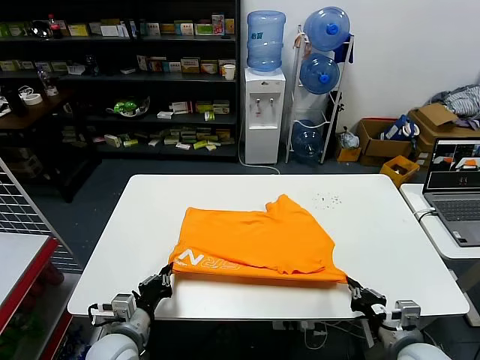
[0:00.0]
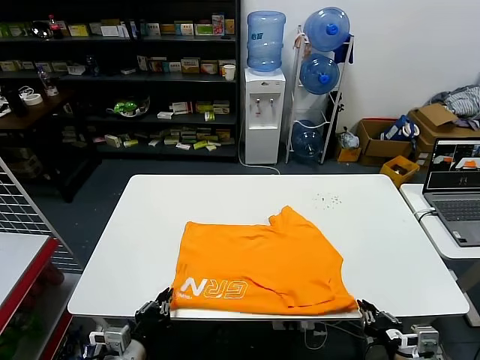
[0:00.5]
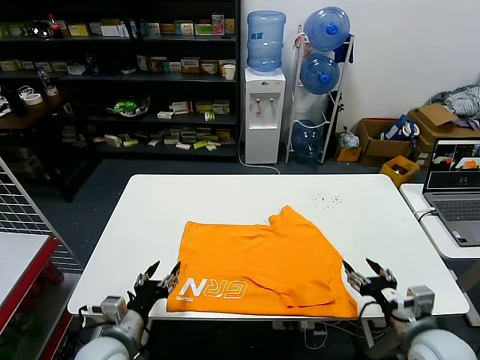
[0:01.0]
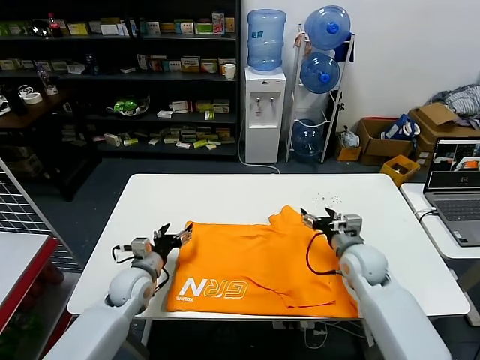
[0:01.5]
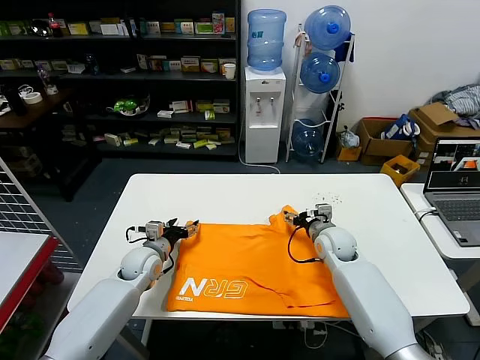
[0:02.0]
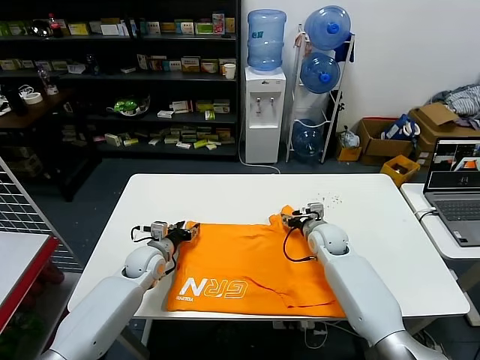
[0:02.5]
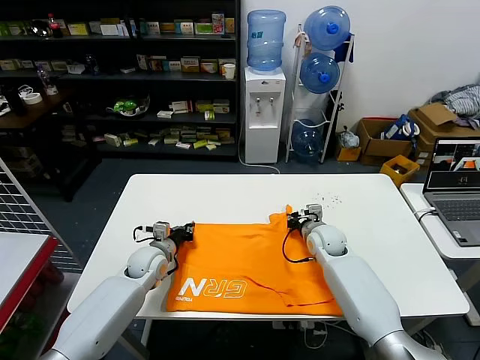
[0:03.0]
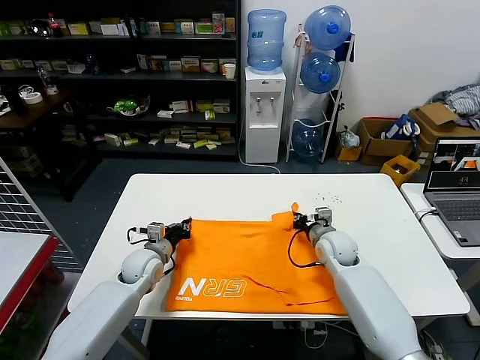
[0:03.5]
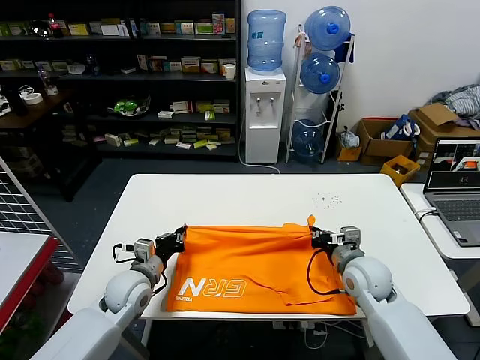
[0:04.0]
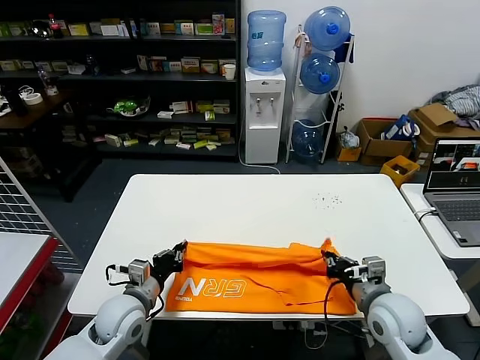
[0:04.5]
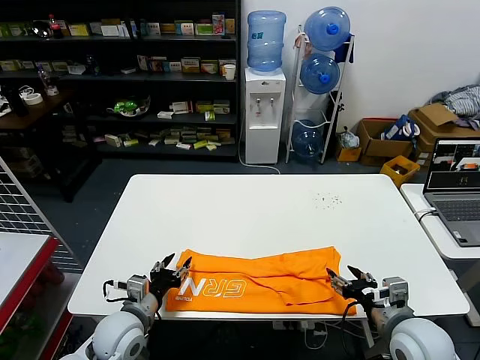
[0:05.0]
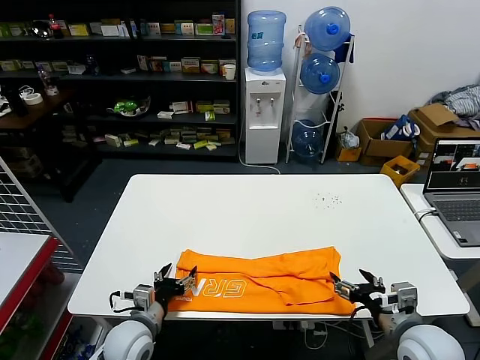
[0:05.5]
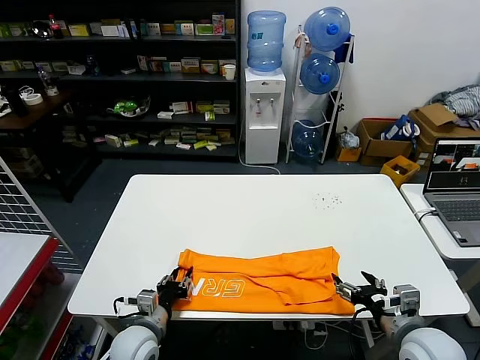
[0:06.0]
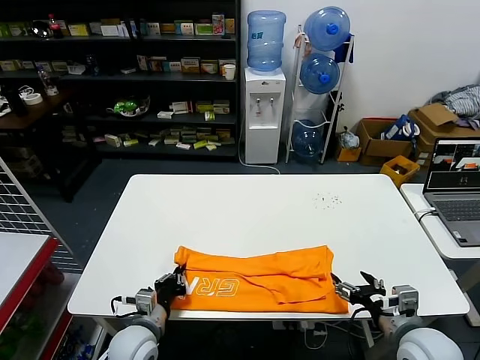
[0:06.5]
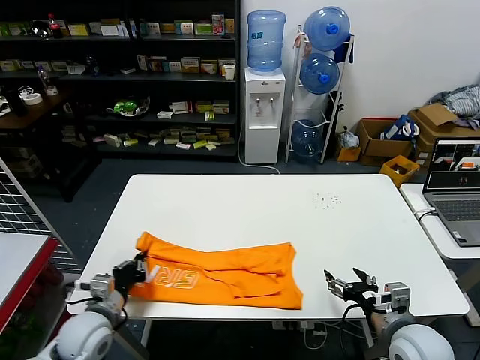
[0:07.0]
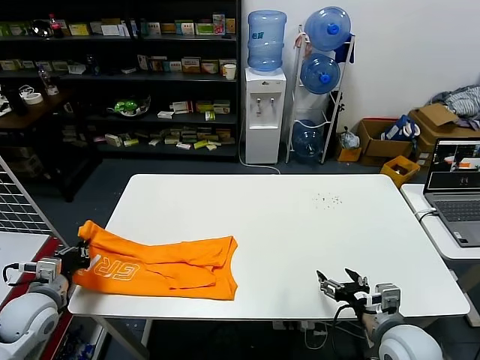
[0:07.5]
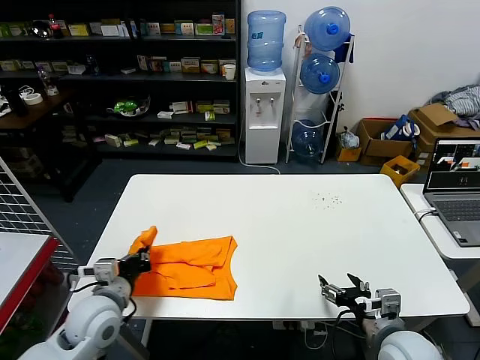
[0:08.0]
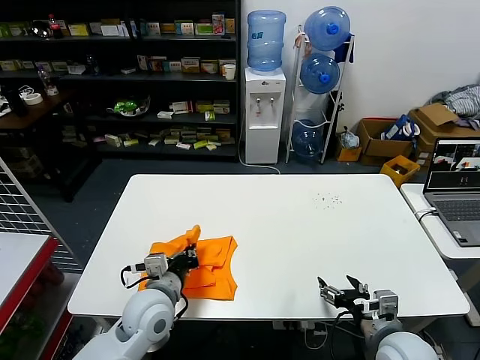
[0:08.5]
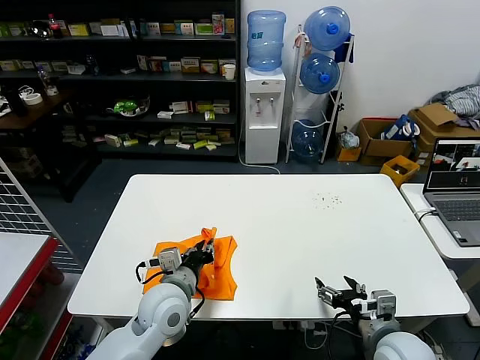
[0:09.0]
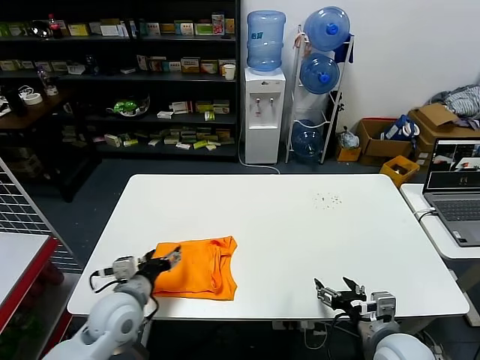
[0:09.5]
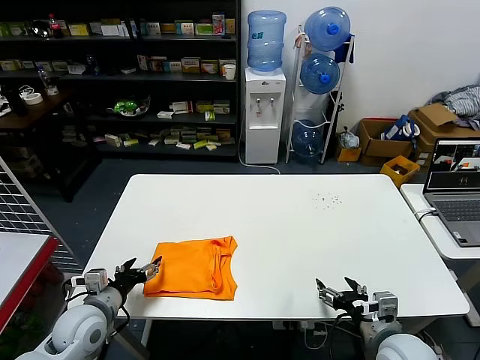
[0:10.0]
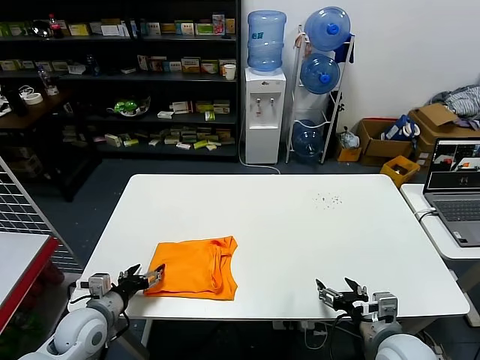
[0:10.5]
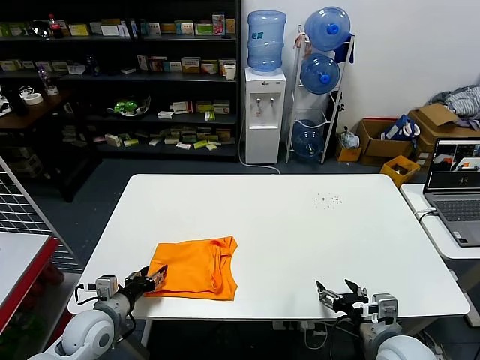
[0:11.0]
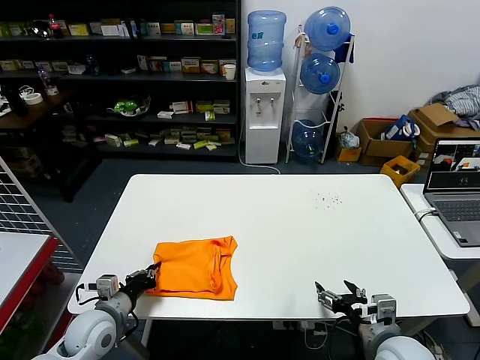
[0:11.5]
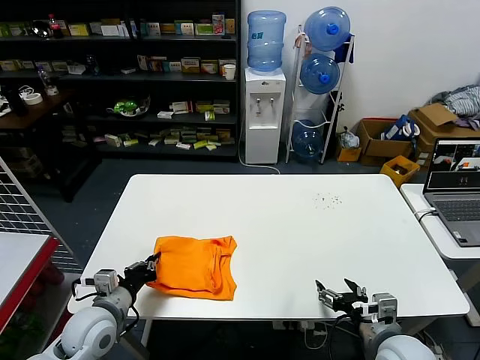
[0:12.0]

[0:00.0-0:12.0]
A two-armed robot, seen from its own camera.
Task of the whole recording: fold and organize the clothes.
Step, 1.0 to 3.0 s: use both grippers simultaneously to clamp the upper edge of the clothing fabric.
Step, 3.5 to 4.5 s: use both grippers to drag the upper edge of the fabric backward and fold it over the lower edge.
Step, 5.0 to 6.0 s: use the left gripper to clamp the left edge of the fabric.
Step, 6.5 to 9.0 s: use the left gripper to drag the left edge of the fabric to the left and folds it over the right edge.
0.0 to 2.0 s: The grippers both shift forward by roughly 25 cm. The right gripper opens. Meanwhile the left gripper opens its fingers.
2.0 to 4.0 s: Both grippers move backward, approximately 10 cm. The right gripper closes up. The left gripper closes.
4.0 to 6.0 s: The left gripper is displaced backward and downward by about 10 cm, and opens up. Meanwhile the right gripper heads backward, covering roughly 15 cm, and opens up.
6.0 to 8.0 s: The left gripper is displaced upward by some 10 cm, reaches approximately 20 cm to the left, then returns, and closes up.
8.0 to 10.0 s: The left gripper reaches roughly 15 cm to the right, then returns, and opens up.
10.0 to 12.0 s: The left gripper closes.

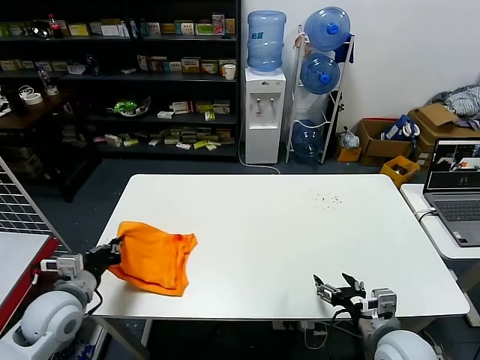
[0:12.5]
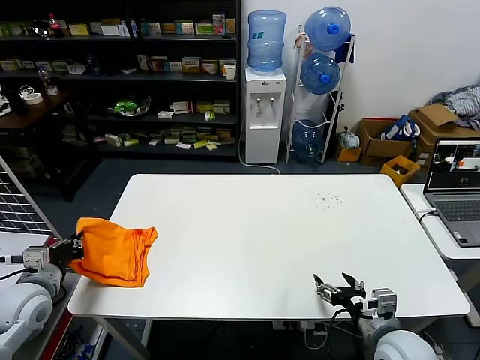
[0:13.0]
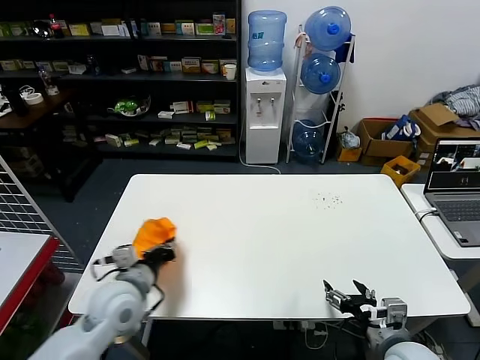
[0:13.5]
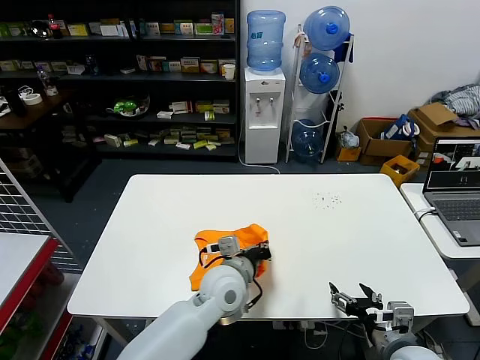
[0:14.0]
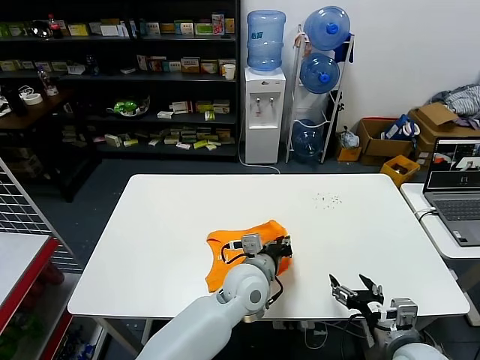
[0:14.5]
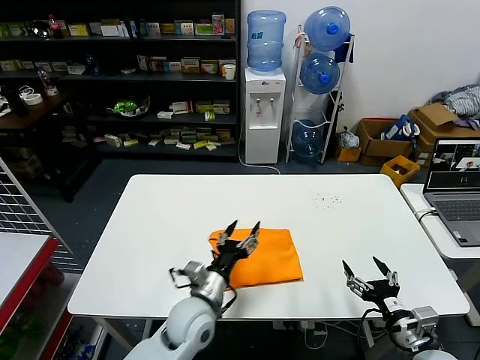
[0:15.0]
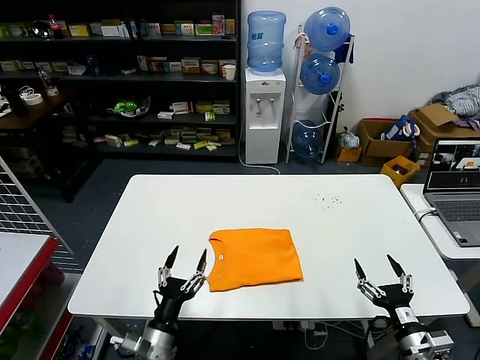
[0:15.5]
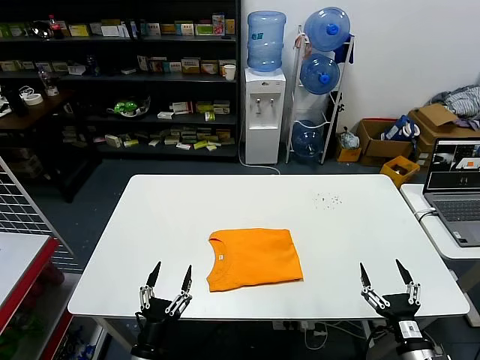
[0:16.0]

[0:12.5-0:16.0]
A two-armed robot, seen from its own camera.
Task of the whole recording: fold and organize the clothes.
Step, 12.5 to 14.5 s: Flip the folded clothes over with left gripper.
12.5 to 14.5 s: The left gripper moves to the right, some 35 cm.
14.5 to 16.0 s: The right gripper heads downward and backward, covering some 10 cm; the left gripper moves to the left, backward and downward, some 30 cm, and opens.

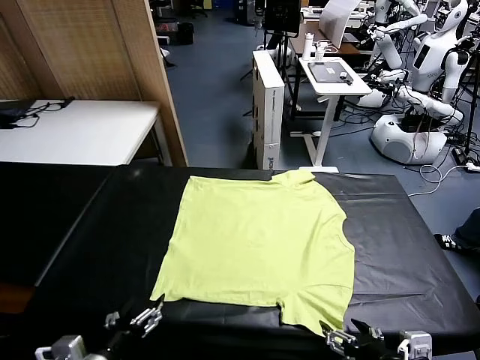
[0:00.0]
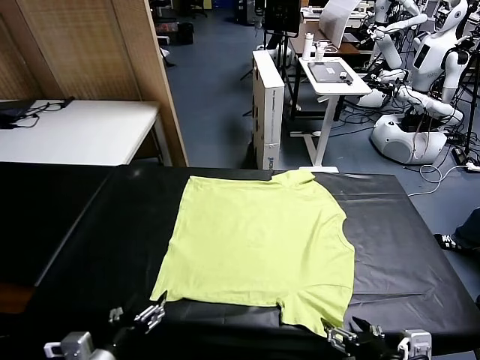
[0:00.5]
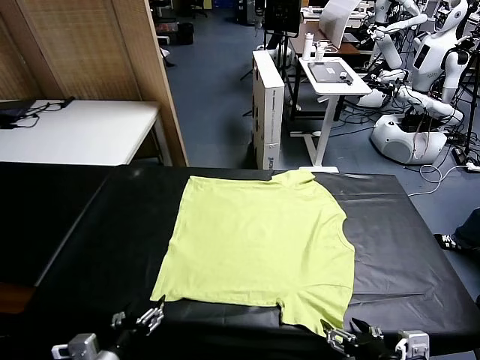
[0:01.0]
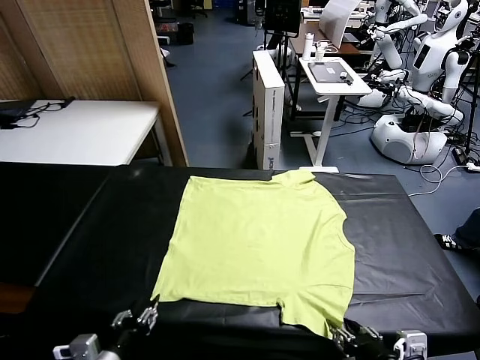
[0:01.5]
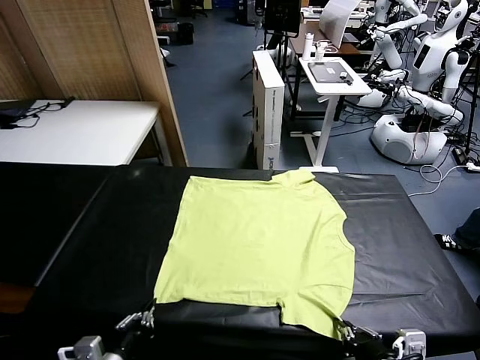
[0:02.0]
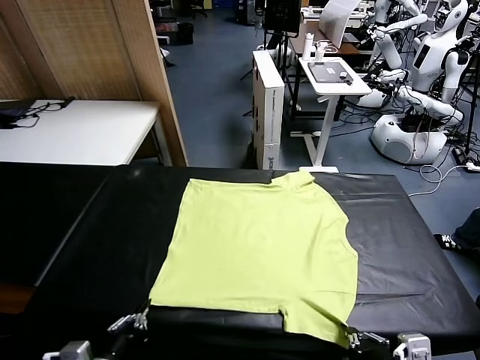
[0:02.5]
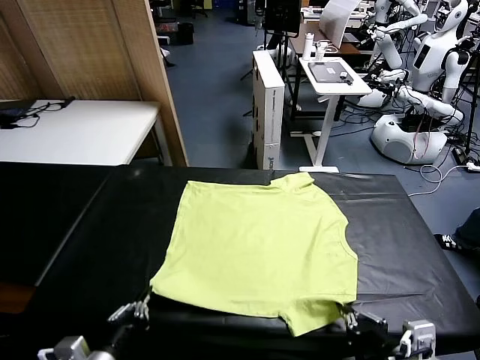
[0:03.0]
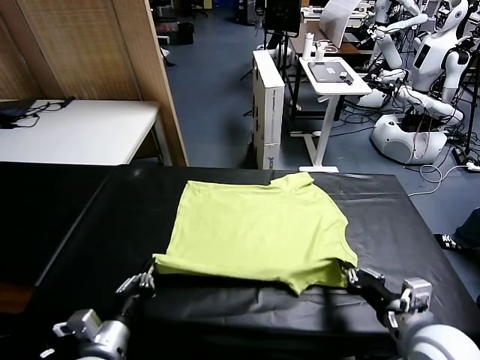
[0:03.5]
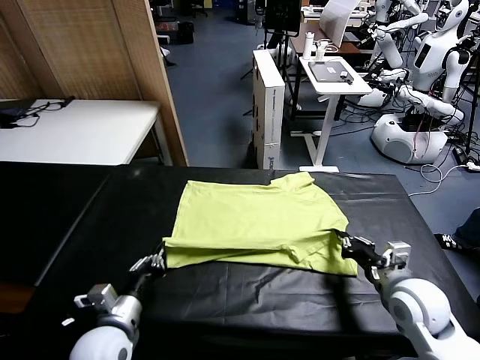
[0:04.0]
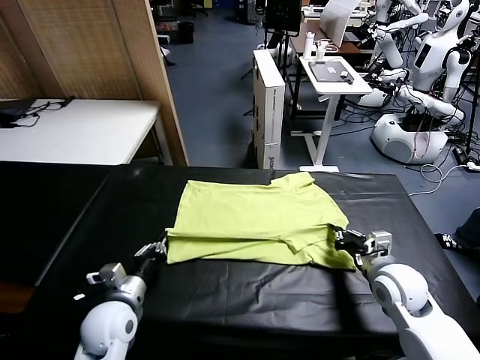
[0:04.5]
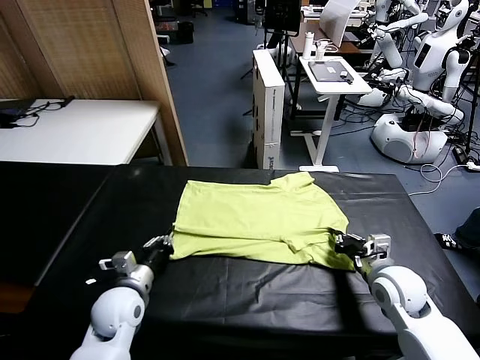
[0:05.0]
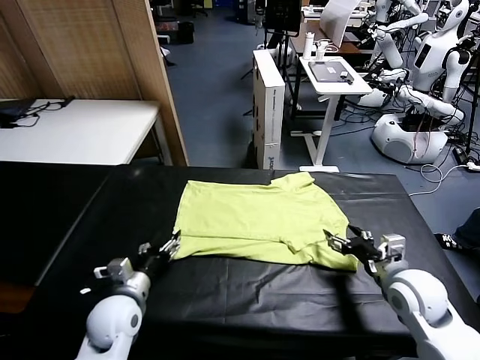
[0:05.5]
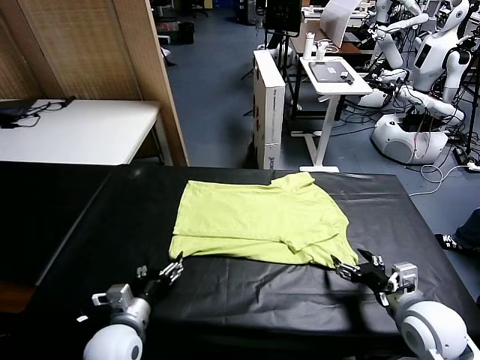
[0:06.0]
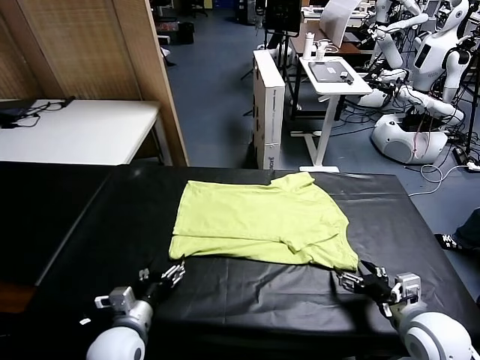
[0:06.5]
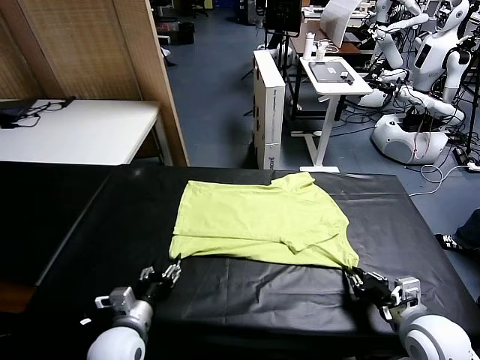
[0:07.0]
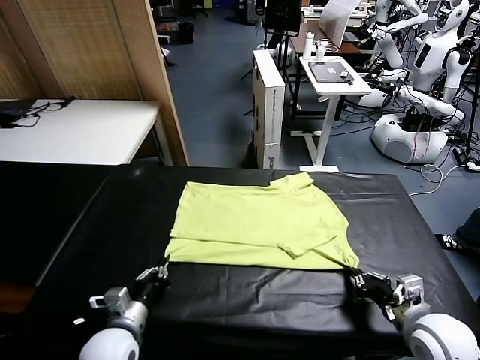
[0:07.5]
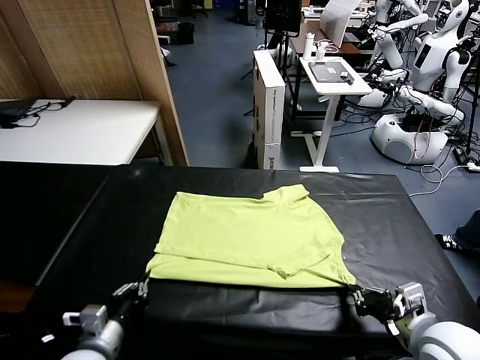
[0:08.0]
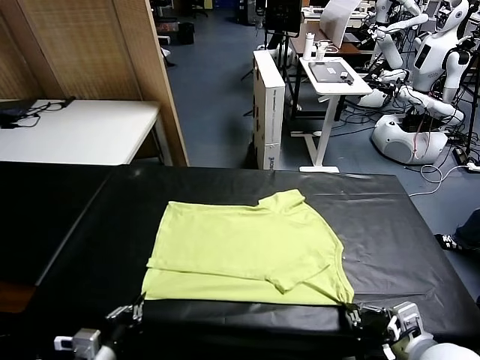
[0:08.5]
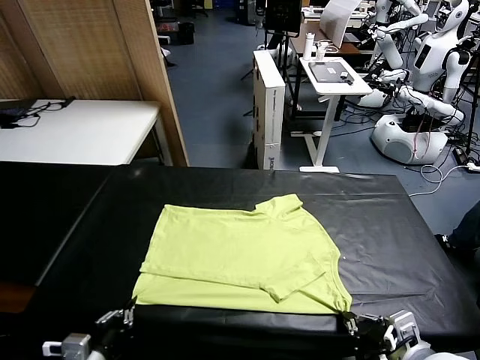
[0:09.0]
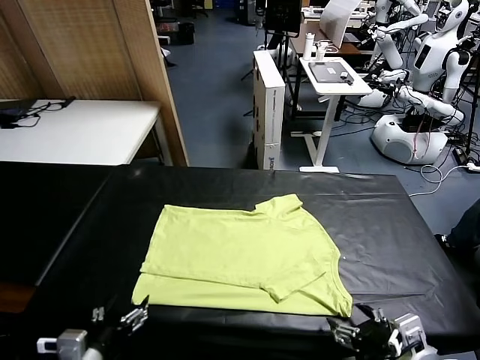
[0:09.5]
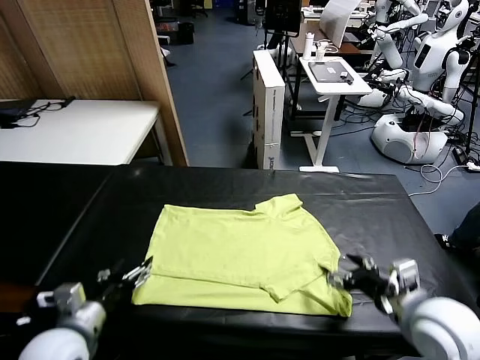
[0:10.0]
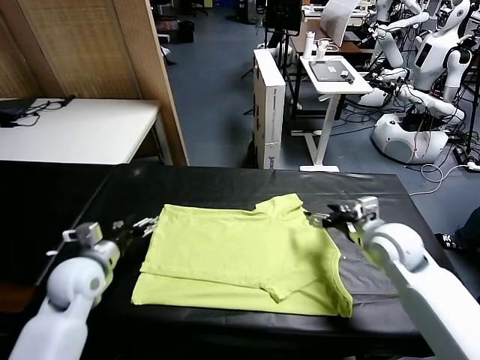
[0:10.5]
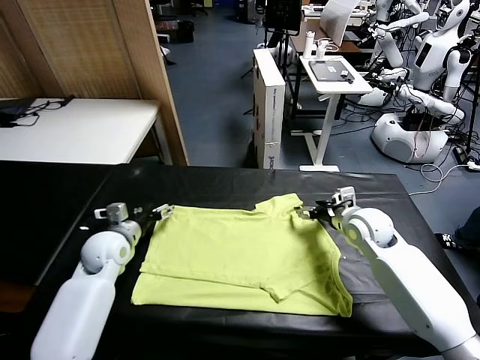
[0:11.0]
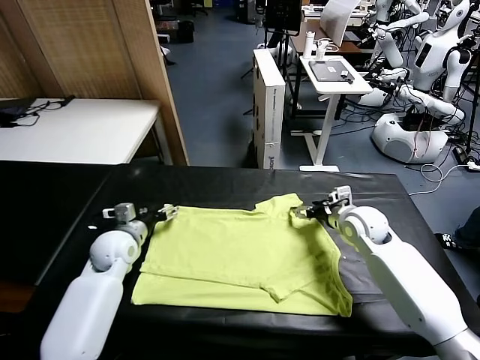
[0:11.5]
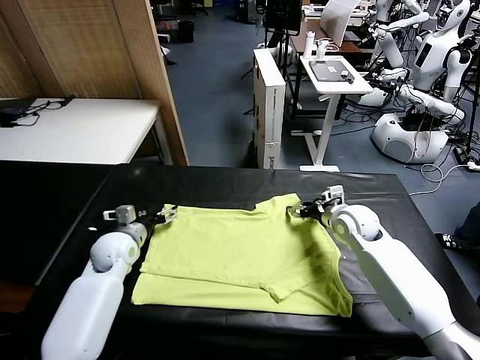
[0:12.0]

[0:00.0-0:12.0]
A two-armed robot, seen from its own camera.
Task of the whole recording: fold and organize the clothes.
Step, 0.0 to 2.0 s: use both grippers simultaneously to clamp the lower edge of the clothing fabric.
Step, 2.5 to 5.0 s: use both grippers to drag the lower edge of the fabric forward and fold it over the upper edge.
Step, 5.5 to 9.0 s: Drag the clothes downward with both gripper.
2.0 to 4.0 s: The left gripper goes some 15 cm forward. The right gripper moves forward, some 20 cm.
4.0 to 6.0 s: The right gripper heads backward, covering about 10 cm, and opens its fingers. The left gripper opens its fingers.
6.0 to 8.0 s: The two grippers go about 10 cm backward. The right gripper closes its fingers. The left gripper closes up.
8.0 to 10.0 s: The two grippers go roughly 25 cm forward. The left gripper opens. Meanwhile the right gripper opens.
10.0 to 12.0 s: The left gripper goes some 10 cm forward and downward. The right gripper travels forward by about 5 cm.
